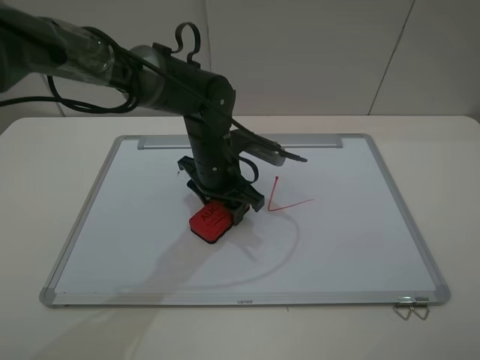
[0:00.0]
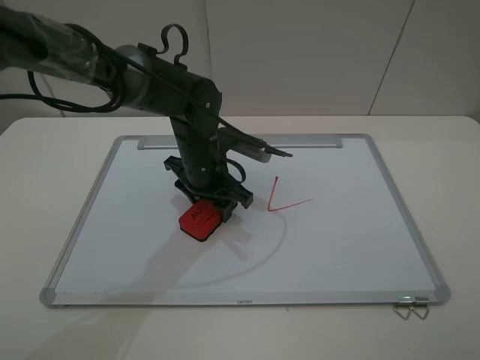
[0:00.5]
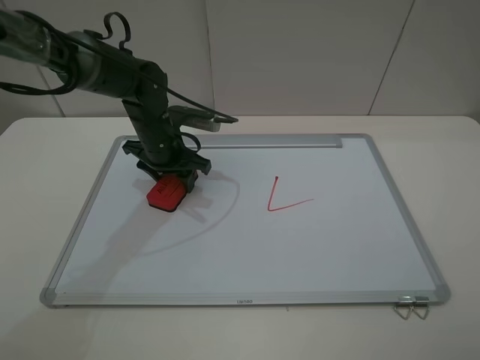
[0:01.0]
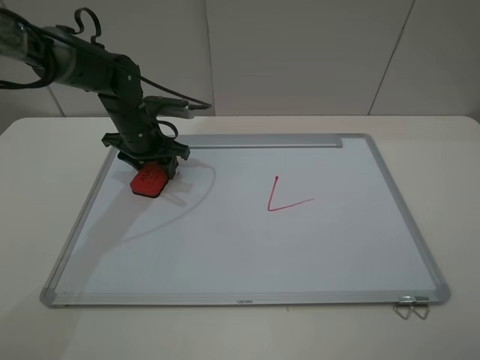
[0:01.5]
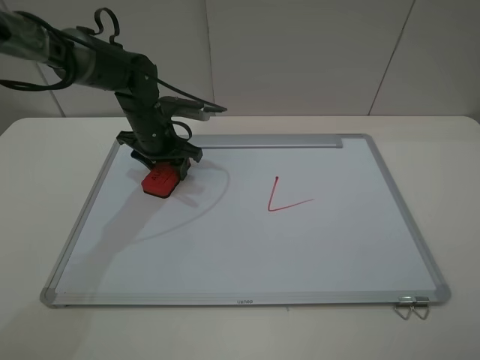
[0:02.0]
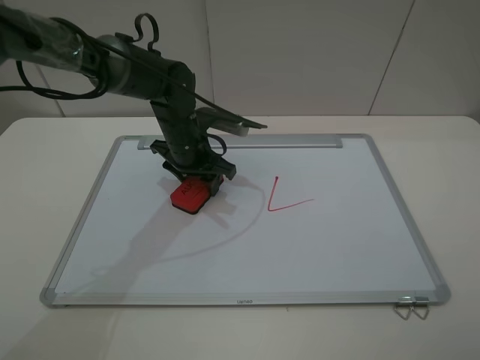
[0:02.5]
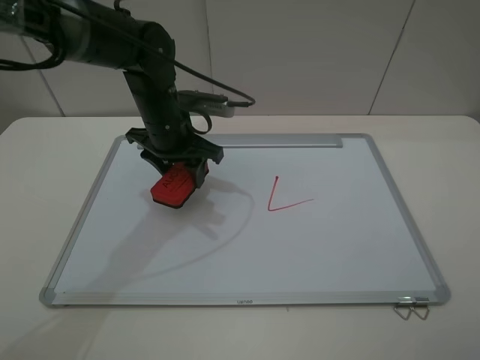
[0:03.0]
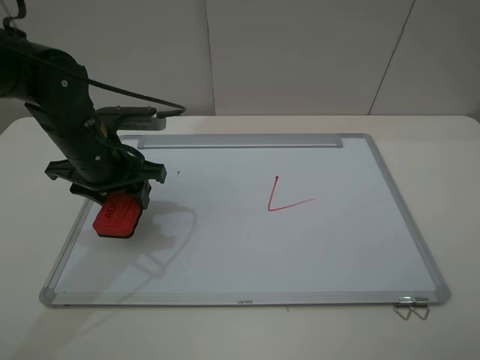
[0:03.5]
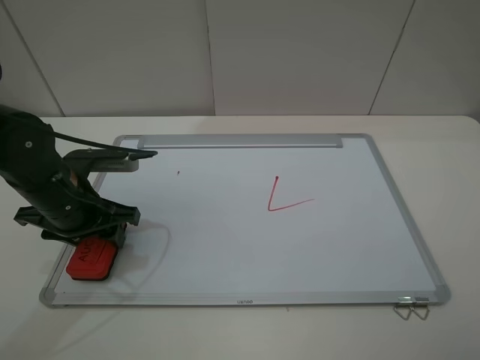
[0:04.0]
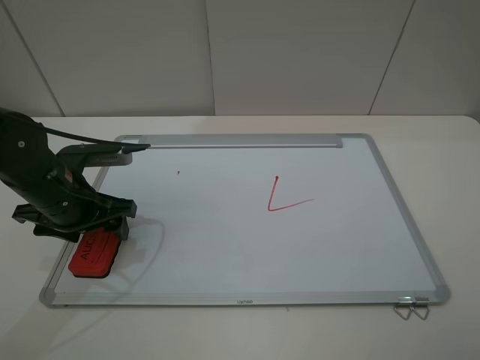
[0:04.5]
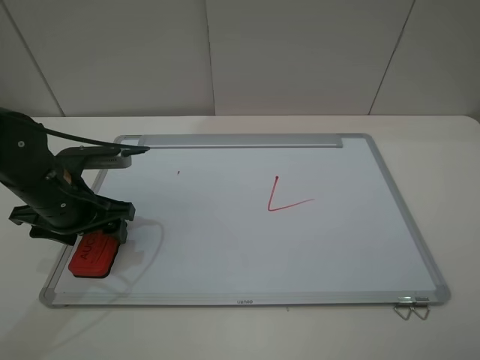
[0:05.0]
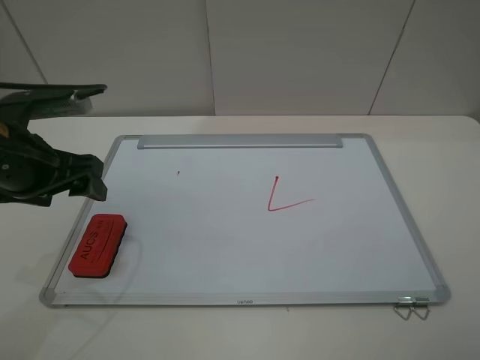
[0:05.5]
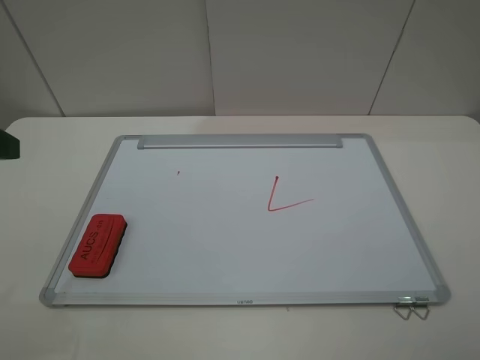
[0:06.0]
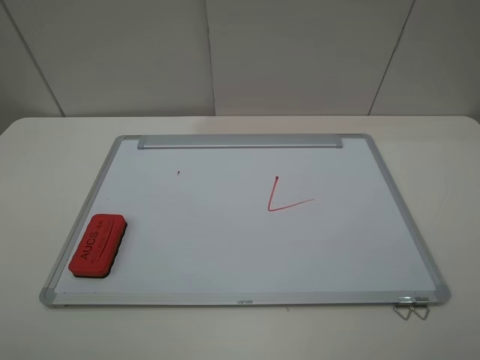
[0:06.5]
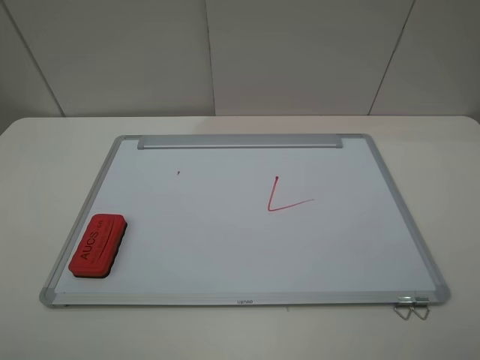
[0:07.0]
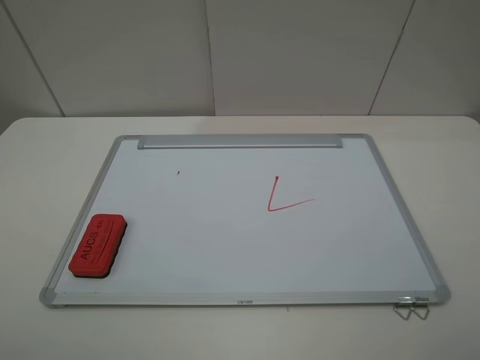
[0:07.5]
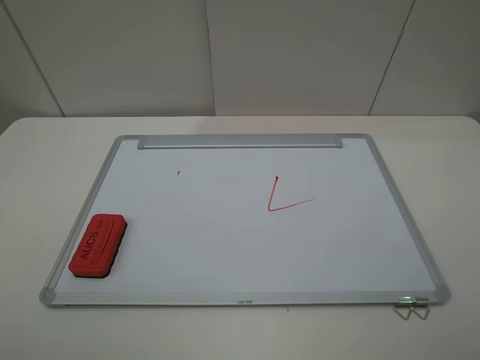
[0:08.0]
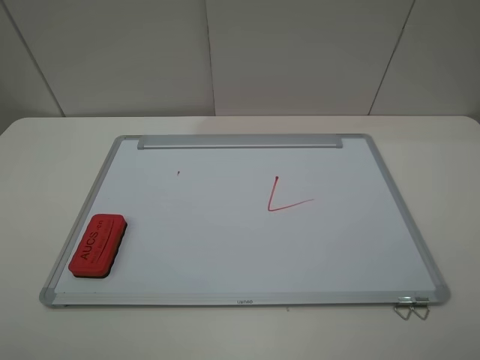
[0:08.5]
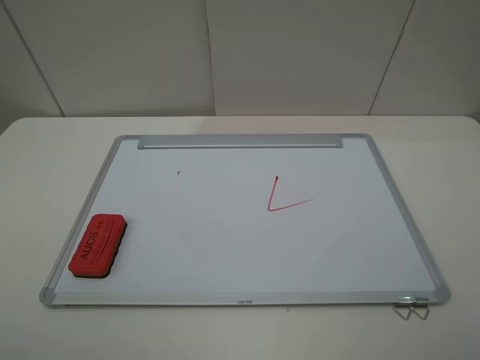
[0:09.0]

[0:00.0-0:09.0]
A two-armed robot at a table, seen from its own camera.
Step, 0:00.0 to 0:02.5: Grasp the eraser and wipe the blackboard with the left gripper.
Step, 0:03.0 to 0:05.0: Place the eraser with the left gripper.
0:00.0 to 0:02.0: The left gripper shifts about 15 cm to the left and forward.
0:02.0 to 0:04.5: The left gripper travels backward and to the left by roughly 20 cm, and opens up.
0:04.5 to 0:07.0: The left gripper shifts about 30 cm backward and upward.
